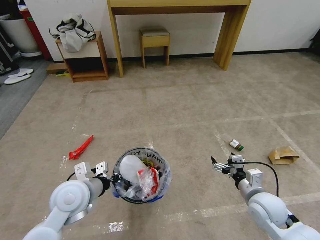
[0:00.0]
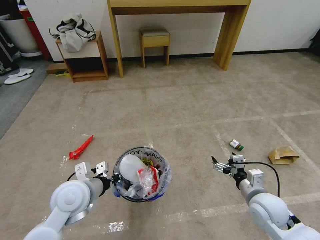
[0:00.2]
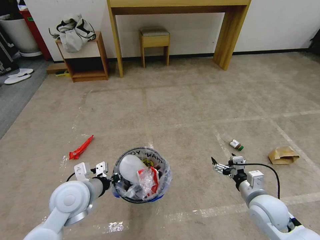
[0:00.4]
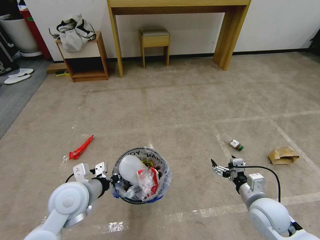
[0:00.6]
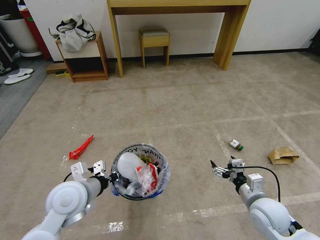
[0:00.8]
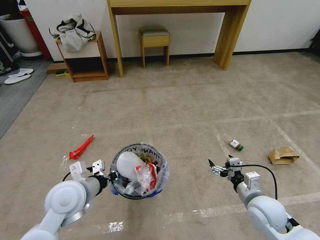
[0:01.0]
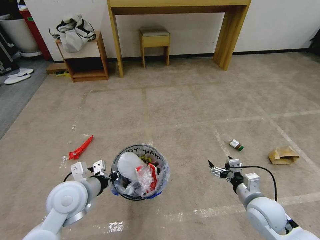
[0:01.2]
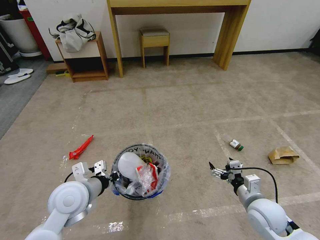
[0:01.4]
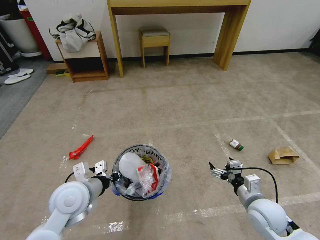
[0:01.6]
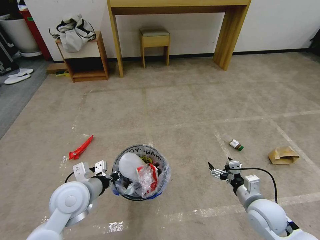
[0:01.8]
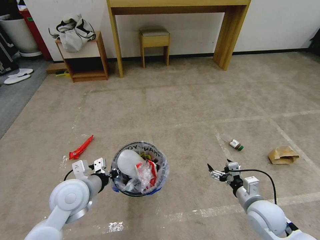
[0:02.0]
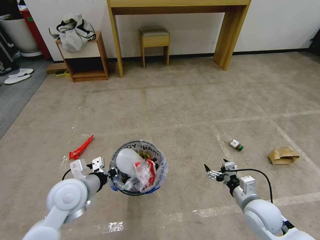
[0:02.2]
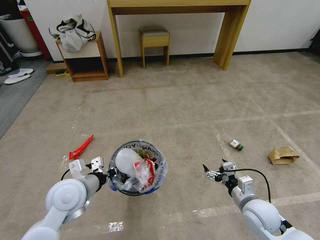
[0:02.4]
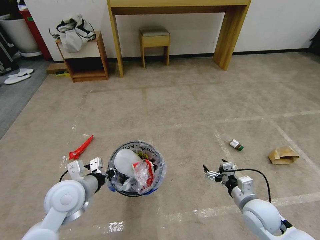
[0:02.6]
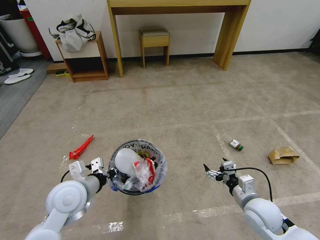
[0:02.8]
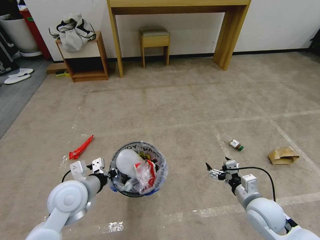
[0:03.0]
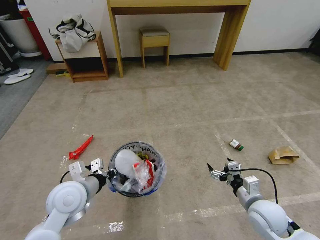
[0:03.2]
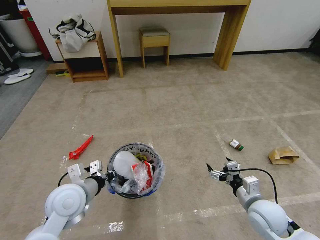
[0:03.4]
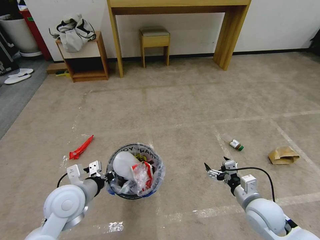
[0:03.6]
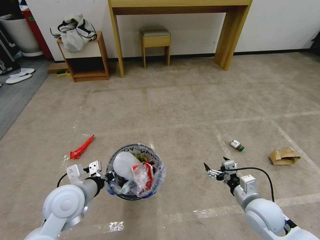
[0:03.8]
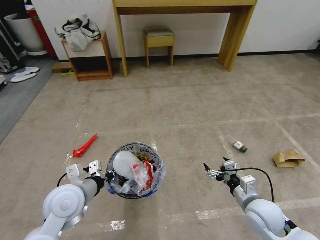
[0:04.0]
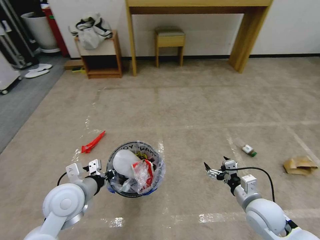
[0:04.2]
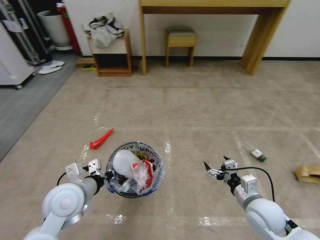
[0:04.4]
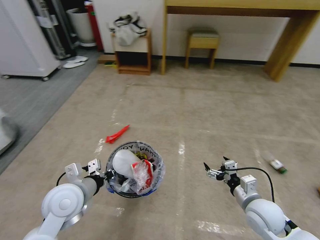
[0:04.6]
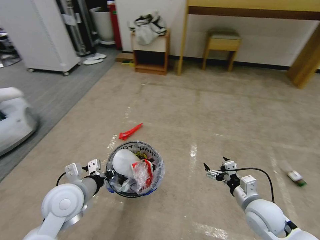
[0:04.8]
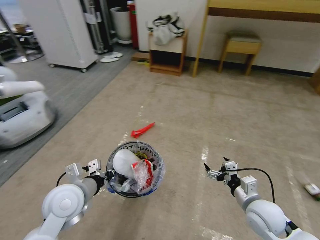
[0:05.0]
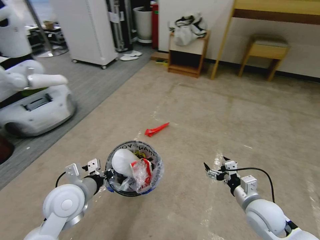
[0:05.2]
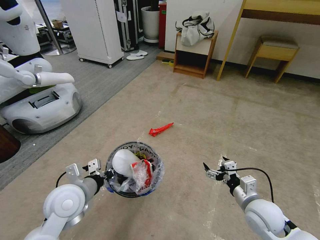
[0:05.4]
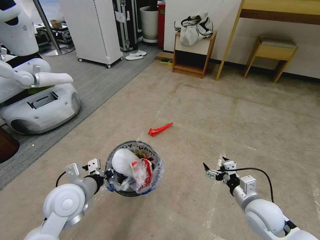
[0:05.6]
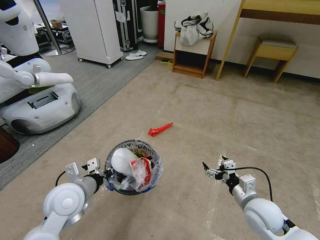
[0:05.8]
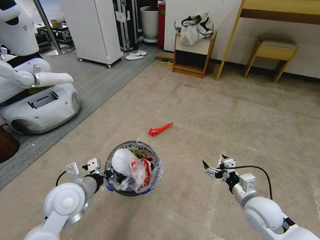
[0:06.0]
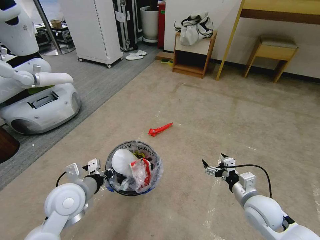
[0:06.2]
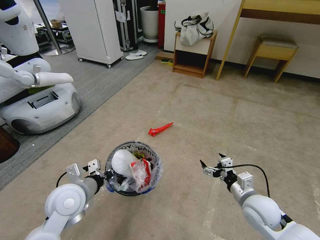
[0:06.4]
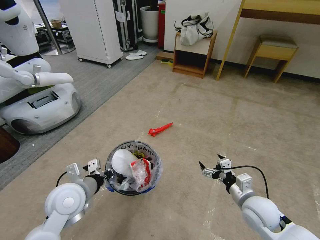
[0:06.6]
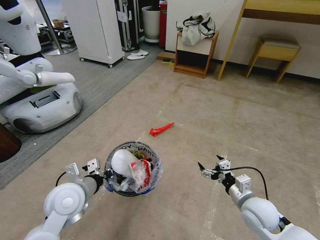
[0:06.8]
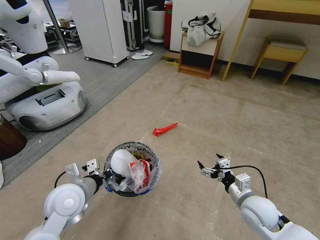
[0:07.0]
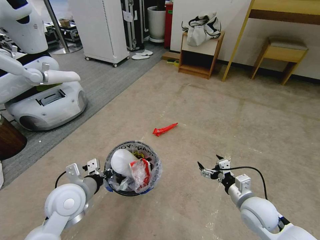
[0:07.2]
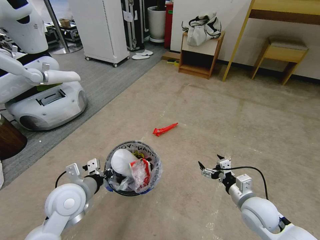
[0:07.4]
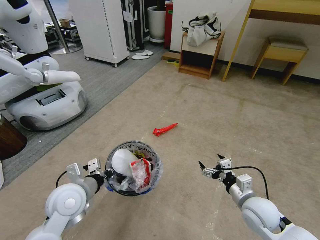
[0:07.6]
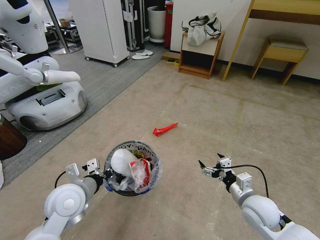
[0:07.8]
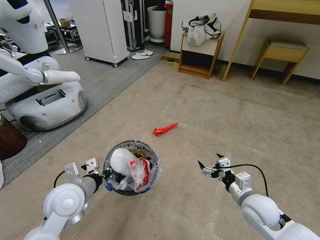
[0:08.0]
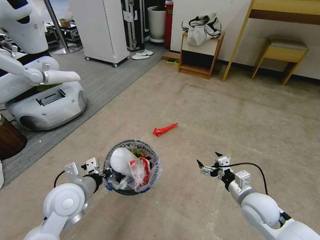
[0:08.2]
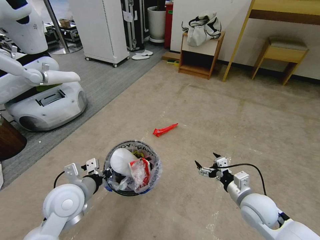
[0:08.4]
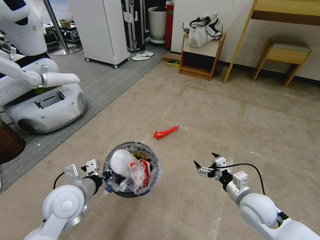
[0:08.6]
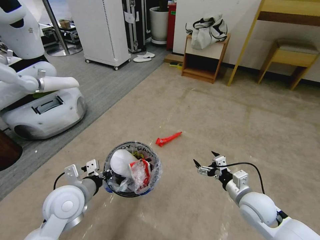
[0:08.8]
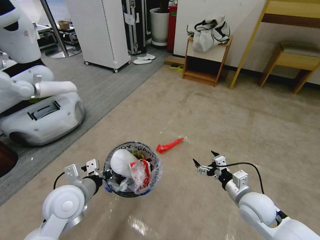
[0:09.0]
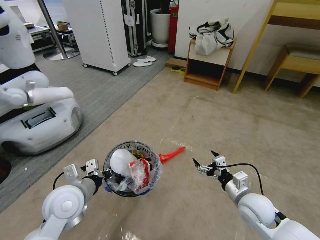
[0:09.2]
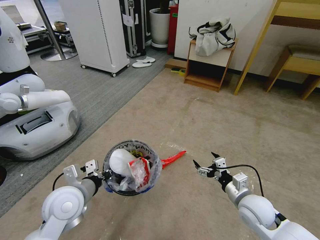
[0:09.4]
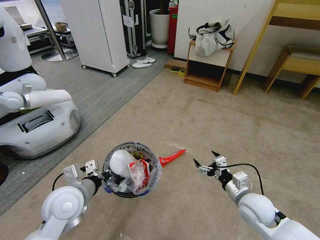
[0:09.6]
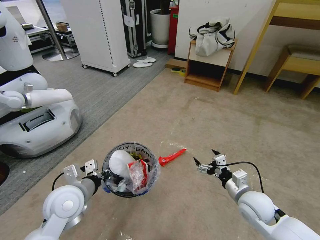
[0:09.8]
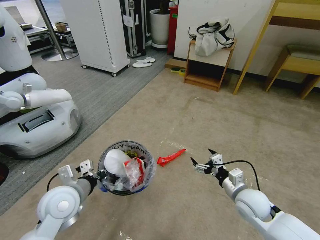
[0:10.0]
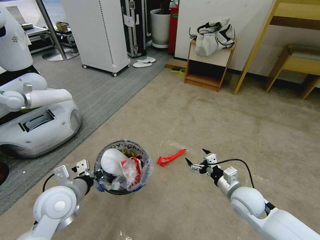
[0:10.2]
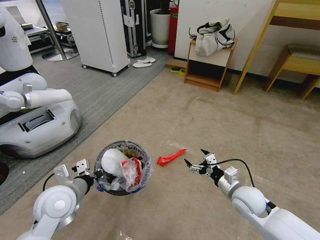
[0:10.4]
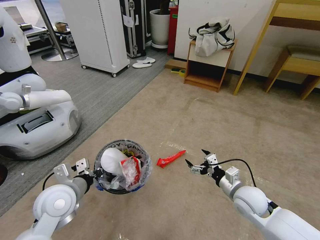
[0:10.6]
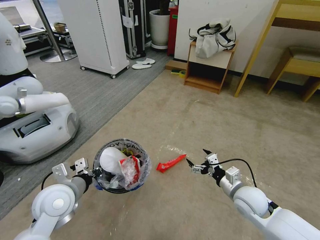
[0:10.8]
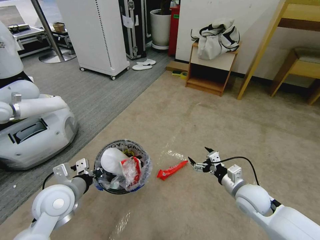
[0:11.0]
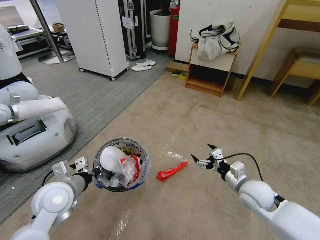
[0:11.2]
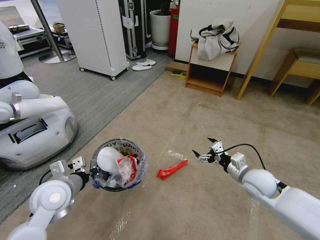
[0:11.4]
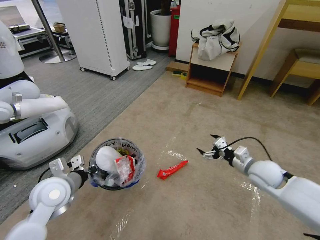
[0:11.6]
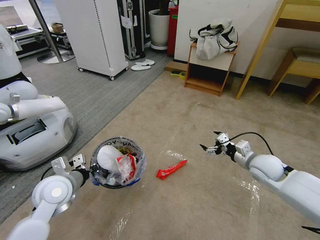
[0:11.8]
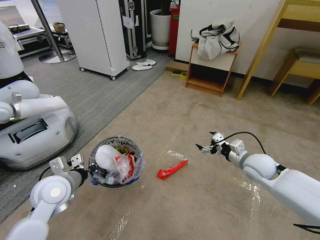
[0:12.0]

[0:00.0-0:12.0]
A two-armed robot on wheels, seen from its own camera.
Task of the whole recording: Pick up the trash bin and place the garbage on the floor into it.
0:00.0 to 0:03.0: The grippers make only small movements.
0:06.0 to 0:07.6: Neither gripper changes place.
0:10.4 to 0:12.0: The right gripper is displaced forward, to the right and upward by about 10 cm.

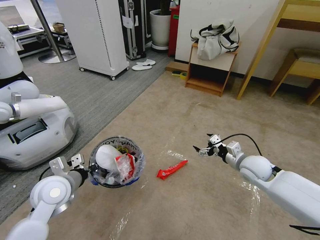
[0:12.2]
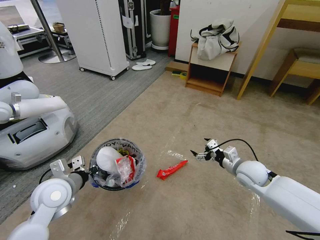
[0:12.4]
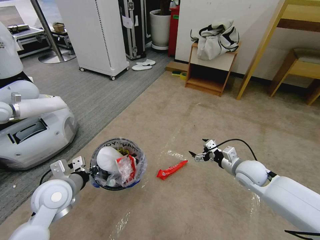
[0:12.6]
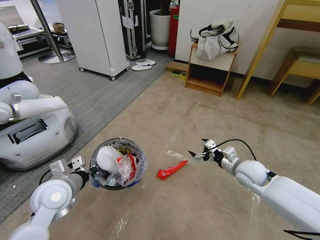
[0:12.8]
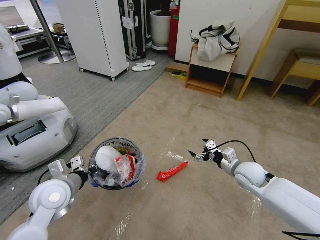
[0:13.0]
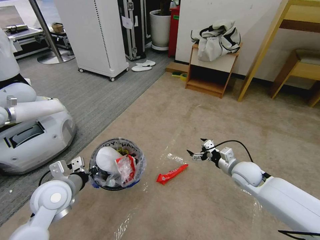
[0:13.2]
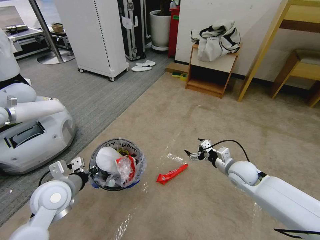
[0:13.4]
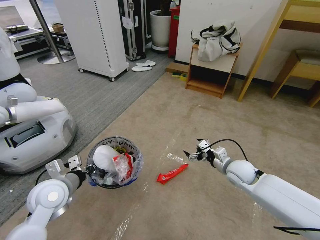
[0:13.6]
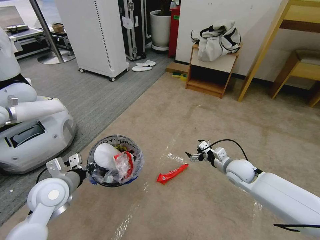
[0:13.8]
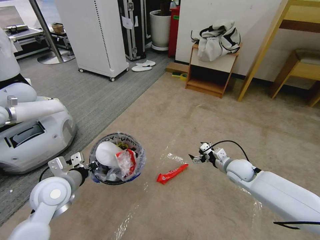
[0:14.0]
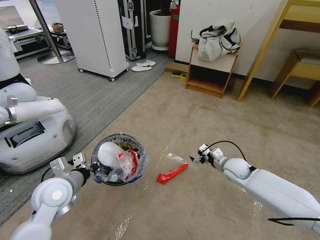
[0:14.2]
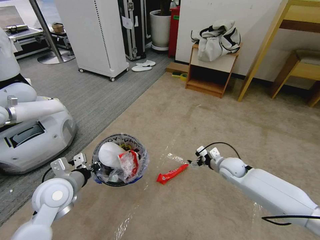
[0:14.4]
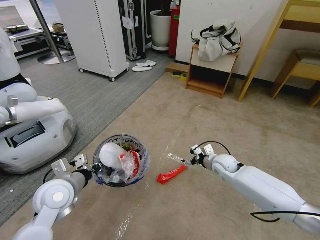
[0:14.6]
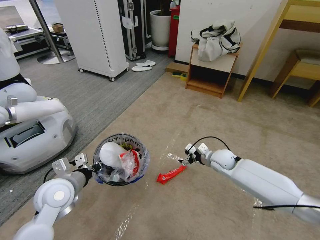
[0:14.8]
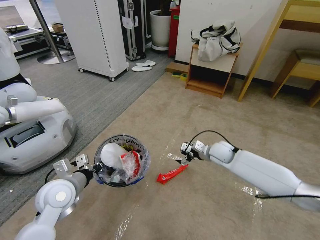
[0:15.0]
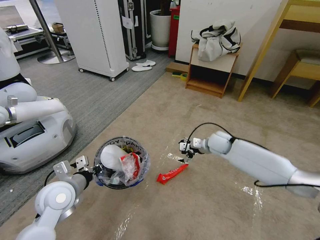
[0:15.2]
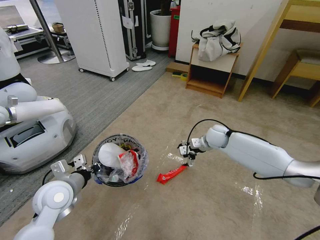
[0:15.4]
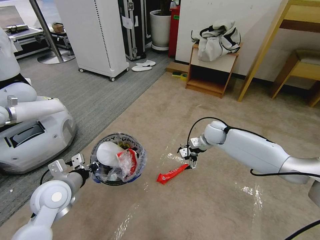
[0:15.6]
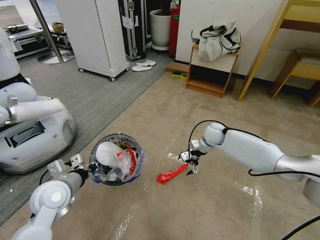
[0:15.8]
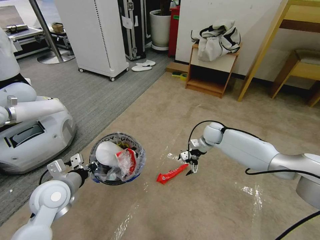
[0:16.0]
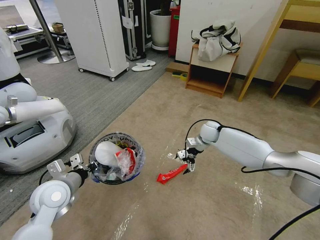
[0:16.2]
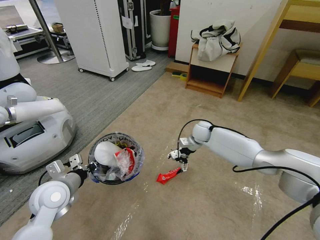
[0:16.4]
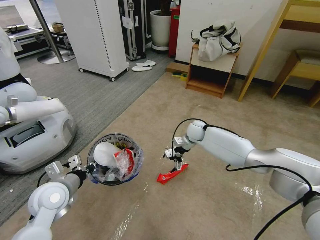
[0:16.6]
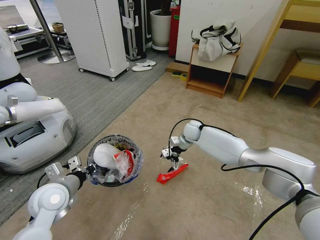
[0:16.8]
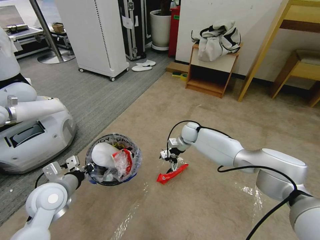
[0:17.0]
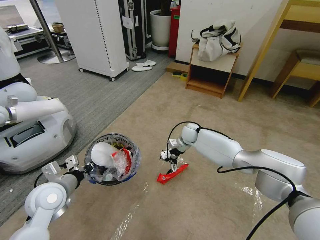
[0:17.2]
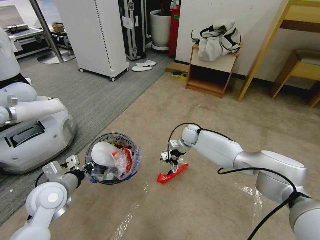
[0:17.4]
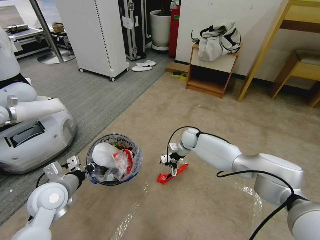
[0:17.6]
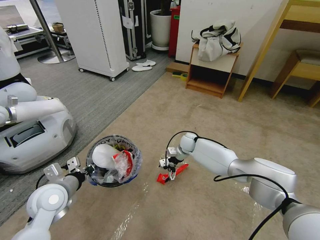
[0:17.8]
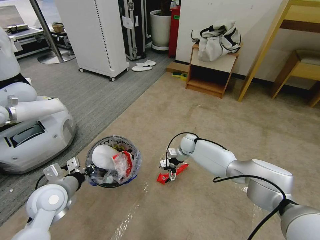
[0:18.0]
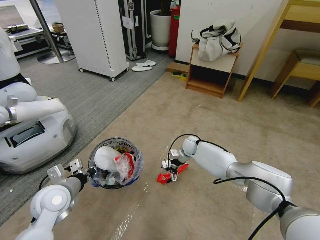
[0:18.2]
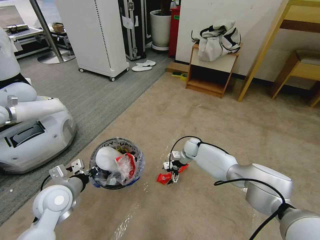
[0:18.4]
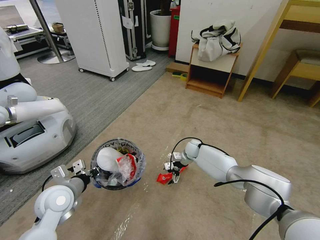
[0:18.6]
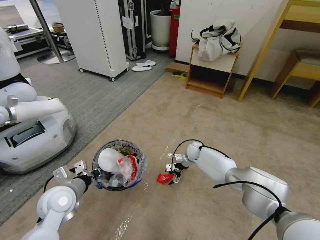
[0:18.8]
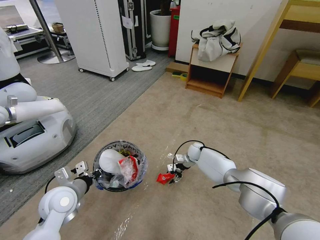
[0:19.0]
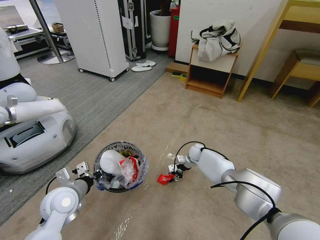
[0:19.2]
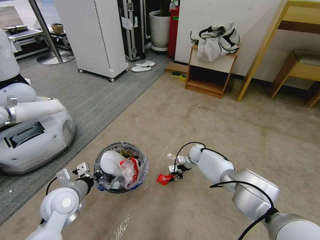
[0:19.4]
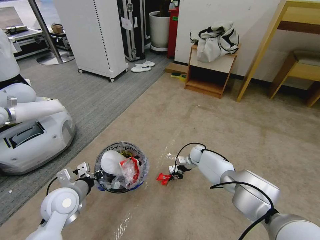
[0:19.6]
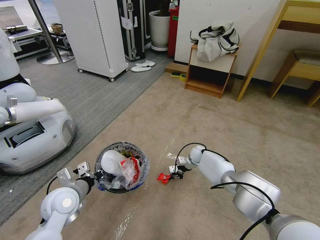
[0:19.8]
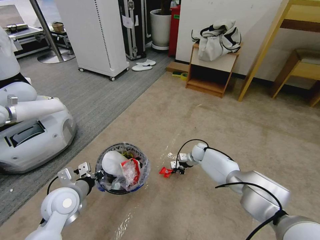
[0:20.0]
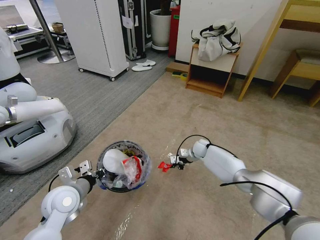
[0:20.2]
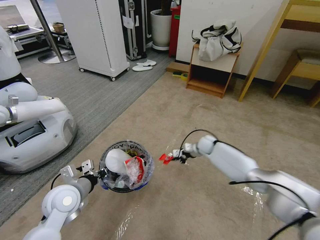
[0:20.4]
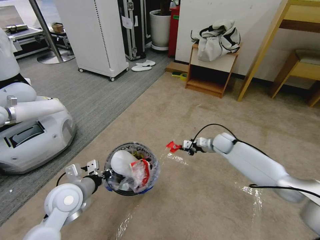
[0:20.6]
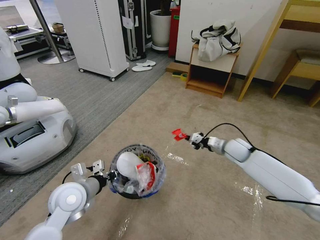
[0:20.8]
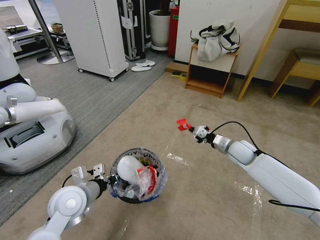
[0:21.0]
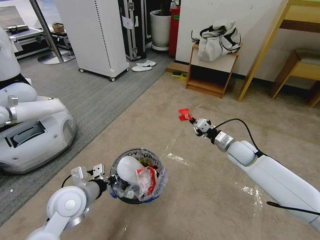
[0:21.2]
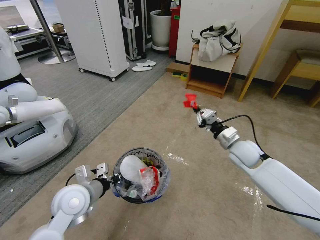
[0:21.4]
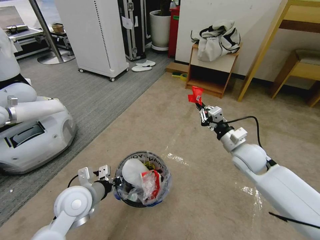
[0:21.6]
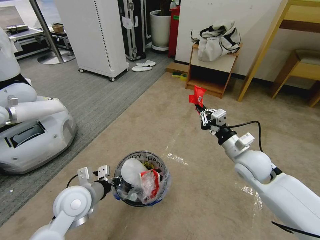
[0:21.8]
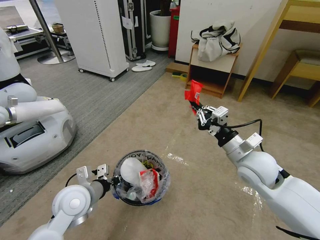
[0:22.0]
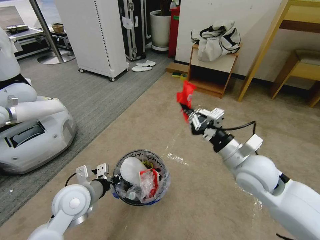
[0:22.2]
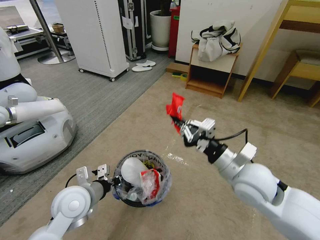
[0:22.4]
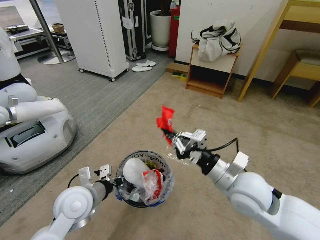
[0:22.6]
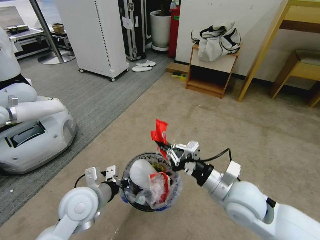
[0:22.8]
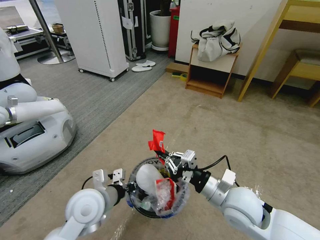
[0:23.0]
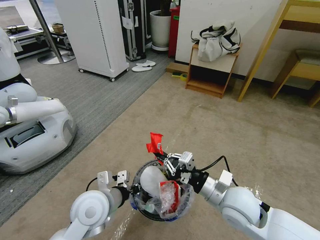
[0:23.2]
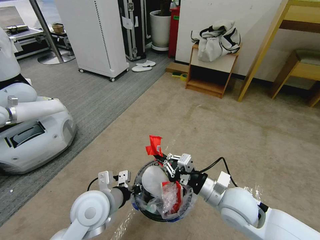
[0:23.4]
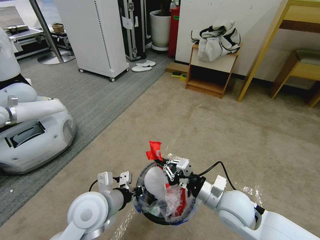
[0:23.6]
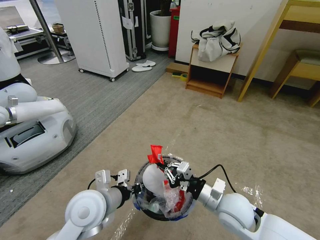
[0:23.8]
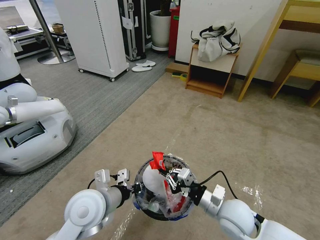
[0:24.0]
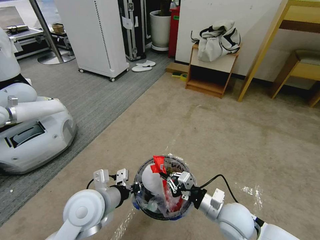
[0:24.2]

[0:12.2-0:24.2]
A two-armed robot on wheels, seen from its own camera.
Task of the whole recording: Pick up the trash bin and place the garbage on the floor into it.
0:12.2 to 0:13.8: The right gripper changes place by roughly 5 cm.
0:13.8 to 0:15.2: The right gripper goes approximately 10 cm forward.
0:15.2 to 0:16.6: The right gripper moves to the left and forward, some 10 cm.
0:16.6 to 0:18.2: The right gripper travels downward by roughly 10 cm.
0:18.2 to 0:19.8: The right gripper heads downward, covering about 5 cm, and closes.
0:19.8 to 0:21.2: The right gripper goes approximately 25 cm upward, backward and to the right.
0:21.2 to 0:22.6: The right gripper is displaced backward, to the left and upward by approximately 20 cm.
0:22.6 to 0:24.2: The left gripper changes place by some 5 cm. Meanwhile the right gripper travels downward by roughly 15 cm.
